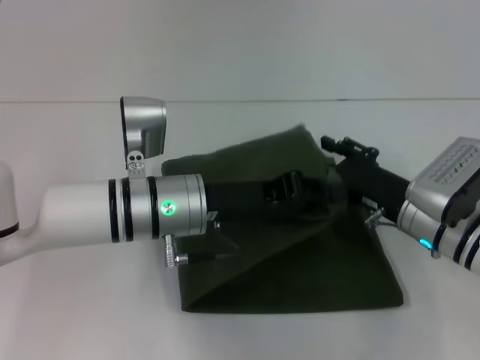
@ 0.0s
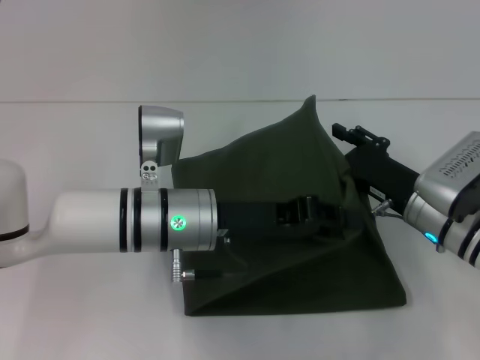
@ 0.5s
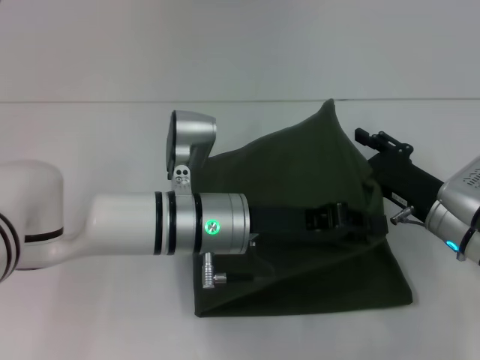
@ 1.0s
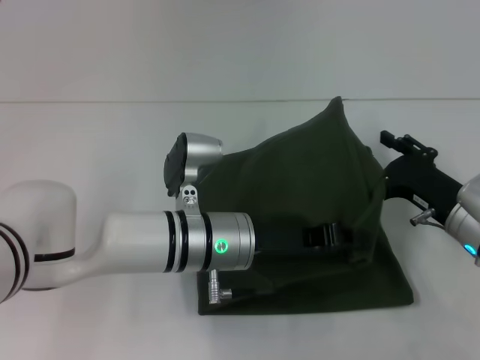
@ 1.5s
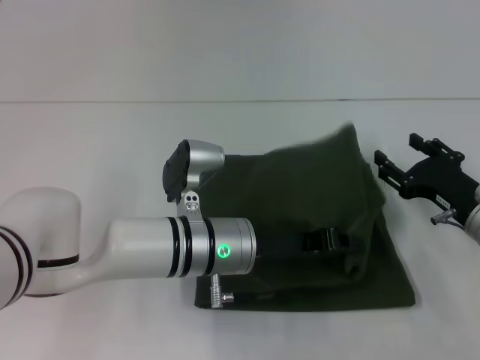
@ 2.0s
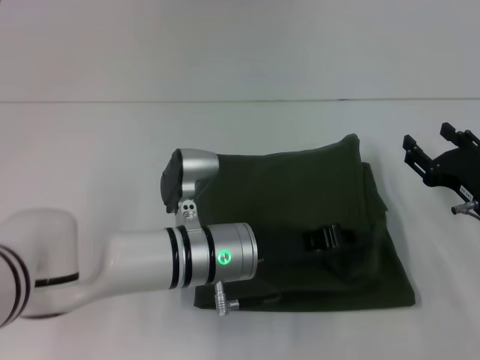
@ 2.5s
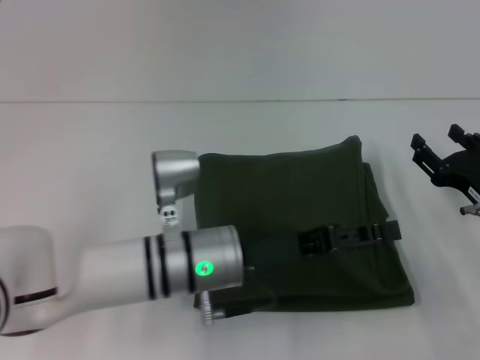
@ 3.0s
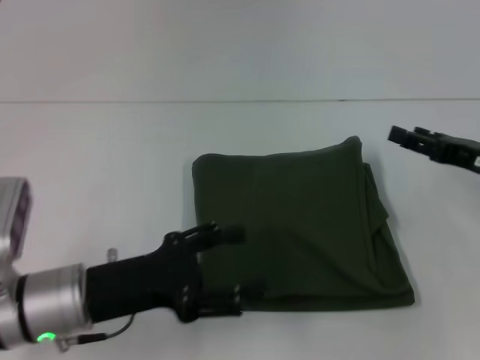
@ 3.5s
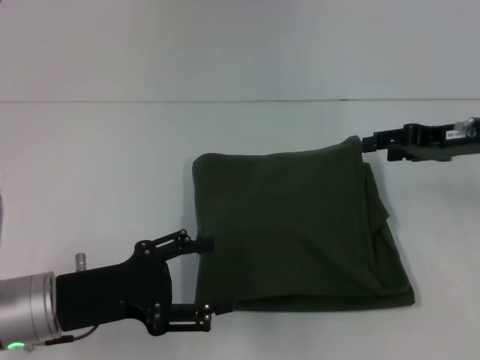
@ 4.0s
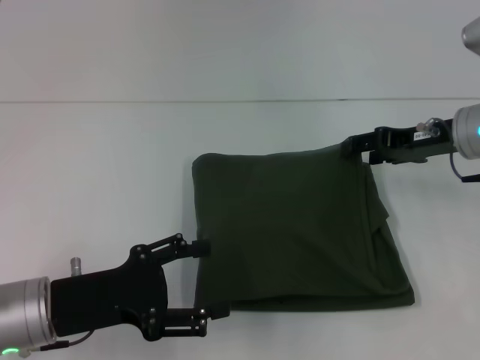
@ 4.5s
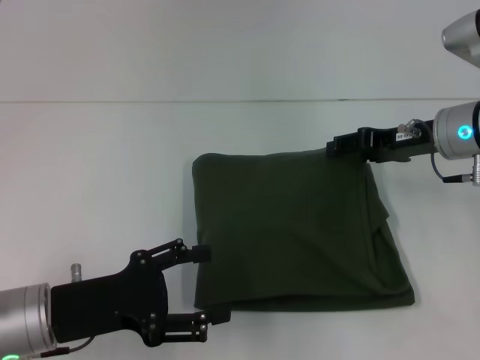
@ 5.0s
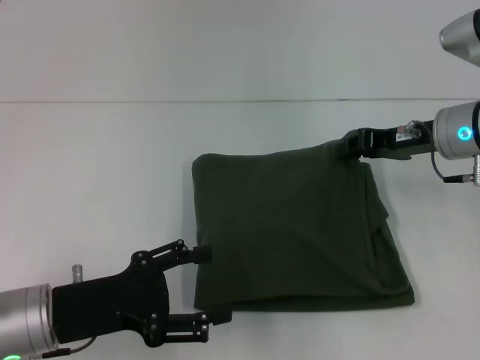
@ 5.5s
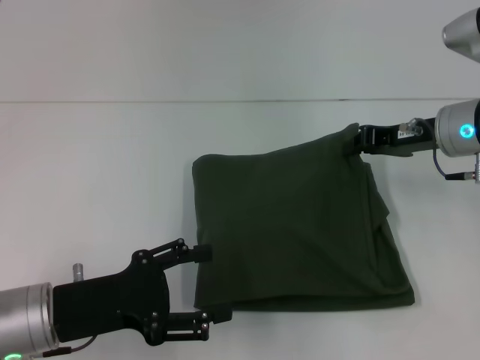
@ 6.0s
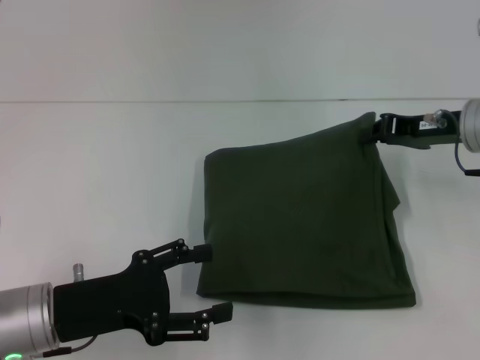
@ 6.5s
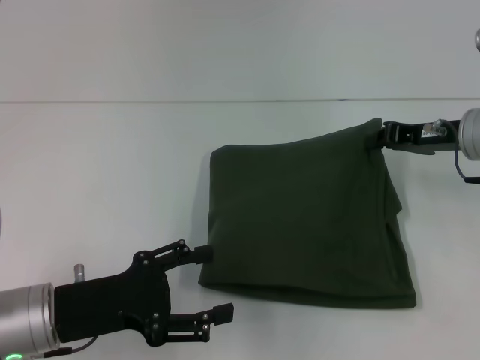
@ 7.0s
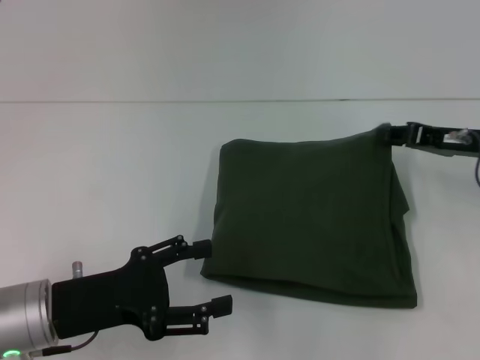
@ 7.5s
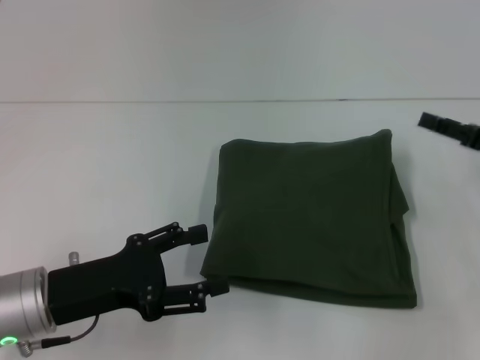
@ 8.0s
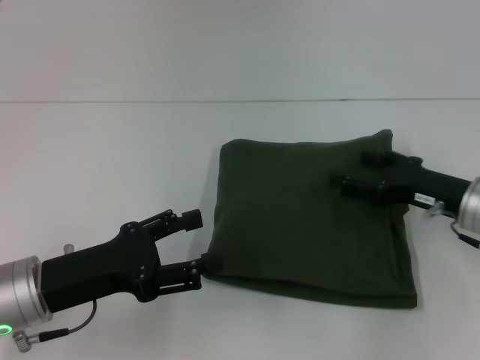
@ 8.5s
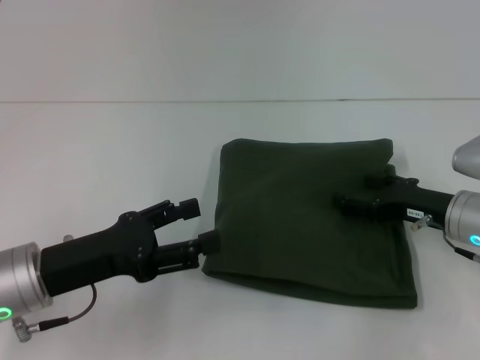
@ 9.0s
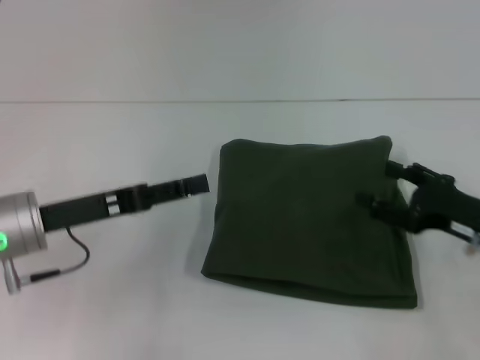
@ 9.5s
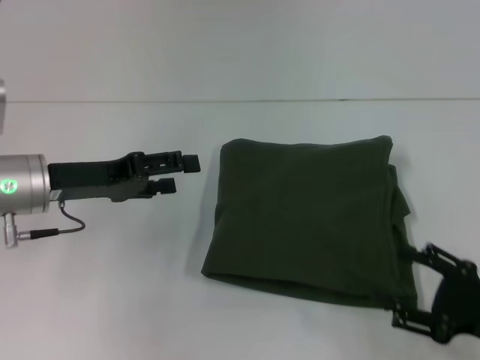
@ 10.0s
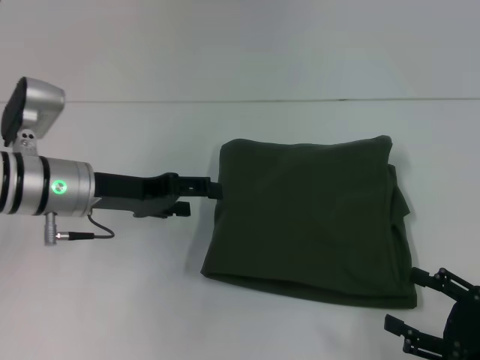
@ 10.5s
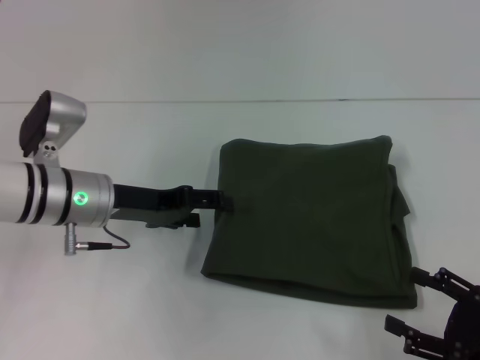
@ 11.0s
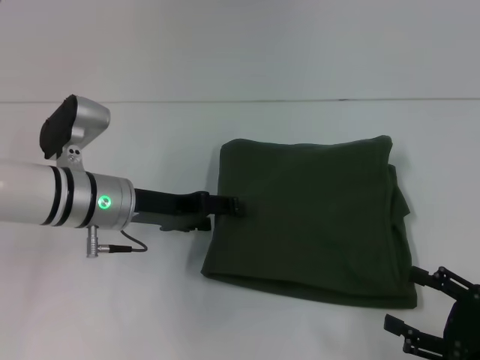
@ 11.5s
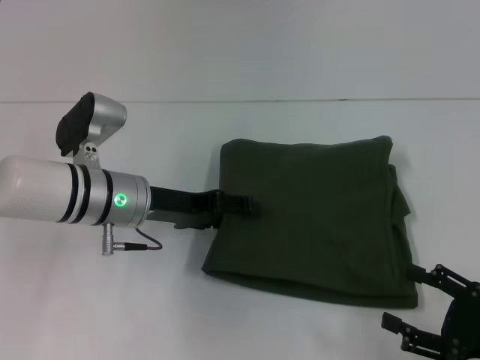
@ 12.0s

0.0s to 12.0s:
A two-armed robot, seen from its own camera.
Step, 0.0s to 2.5s: Fold the clothes with your left hand.
0.0s to 2.0s: The left gripper ends up approximately 5 cm from where it was. The right gripper heads to the right, covering roughly 5 cm.
2.0s to 4.0s: The right gripper heads upward and forward, covering some 15 cm. The left gripper is displaced to the left and backward by roughly 20 cm, and opens up.
4.0s to 6.0s: The right gripper moves roughly 5 cm, and closes.
6.0s to 8.0s: The right gripper is displaced to the right and backward by approximately 10 cm, and opens up.
8.0s to 10.0s: The left gripper moves forward, roughly 10 cm; the right gripper is displaced backward and downward by about 15 cm, and opens up.
10.0s to 12.0s: The left gripper goes some 10 cm to the right.

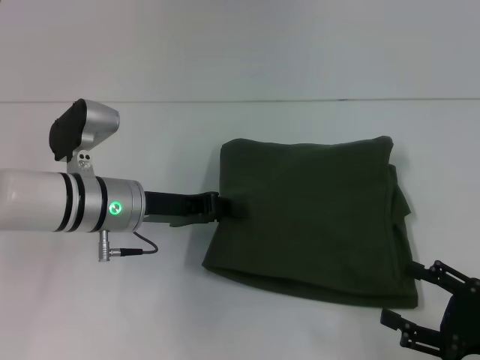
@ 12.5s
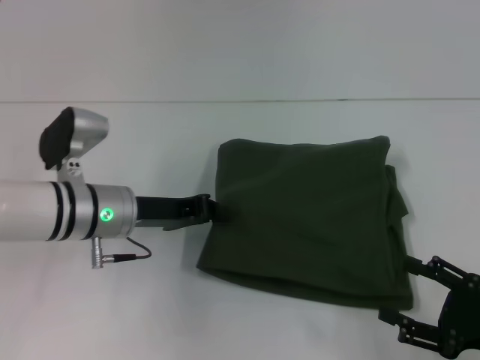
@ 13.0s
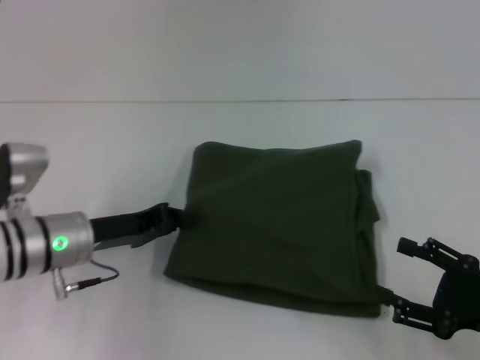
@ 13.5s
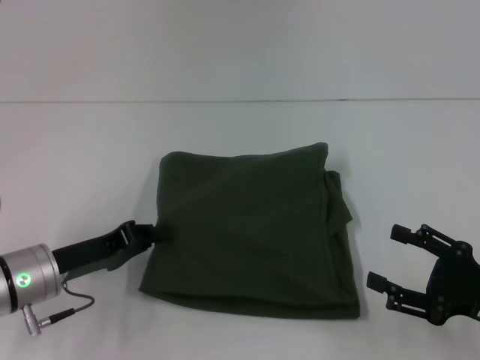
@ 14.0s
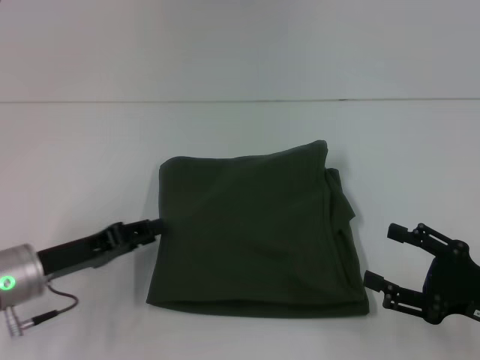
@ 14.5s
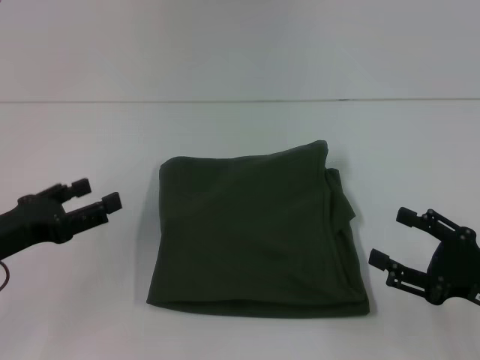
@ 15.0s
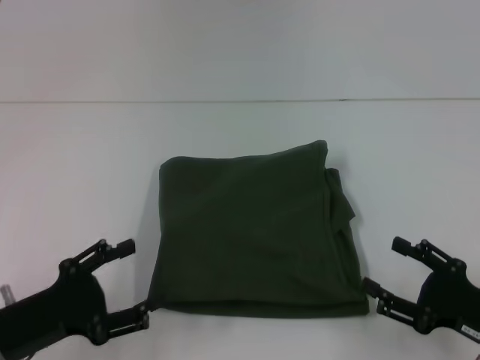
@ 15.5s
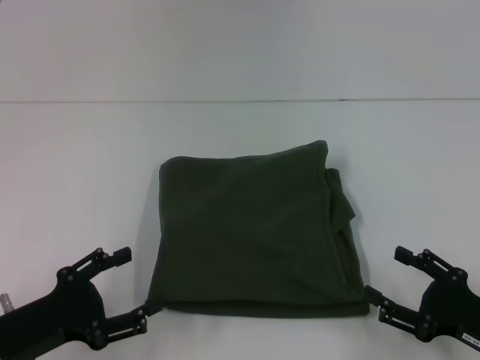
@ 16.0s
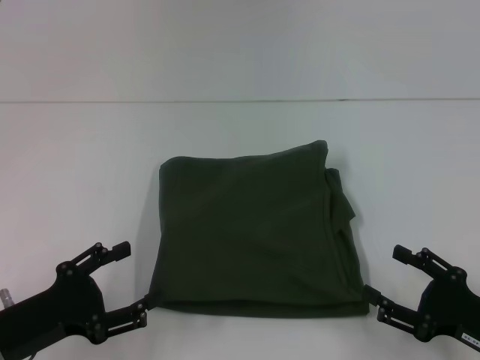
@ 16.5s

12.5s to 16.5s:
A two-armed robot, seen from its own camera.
12.5s to 14.5s: The left gripper shifts roughly 10 cm to the left and backward, and closes up.
14.5s to 16.5s: The left gripper is displaced backward by approximately 10 cm, and opens up.
